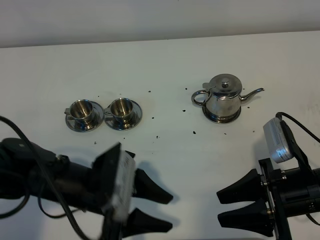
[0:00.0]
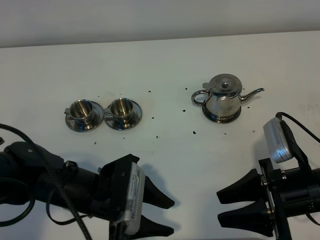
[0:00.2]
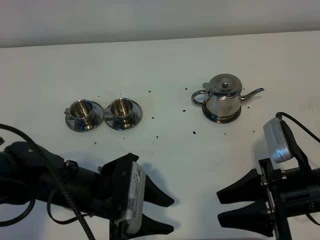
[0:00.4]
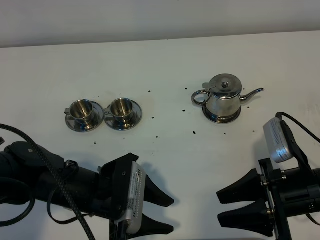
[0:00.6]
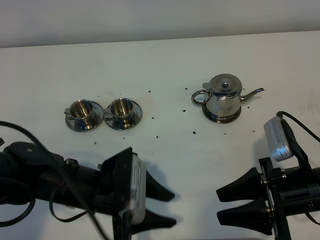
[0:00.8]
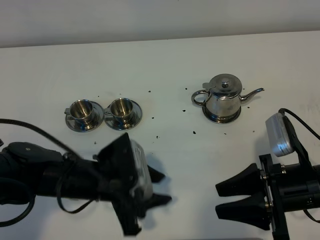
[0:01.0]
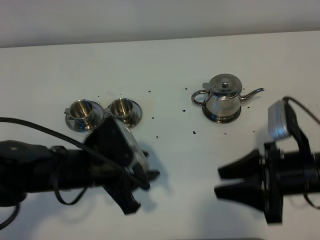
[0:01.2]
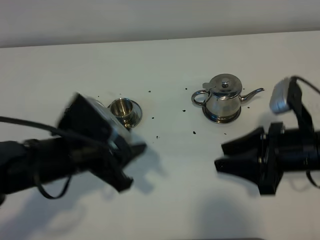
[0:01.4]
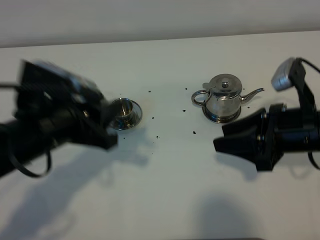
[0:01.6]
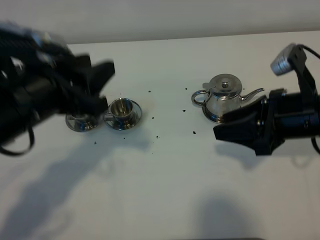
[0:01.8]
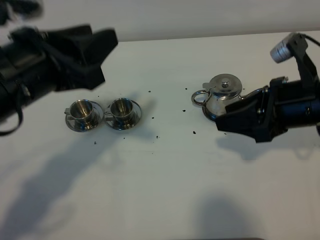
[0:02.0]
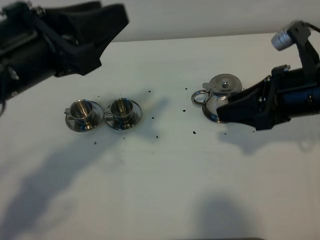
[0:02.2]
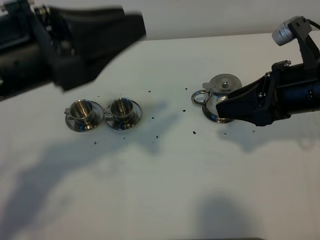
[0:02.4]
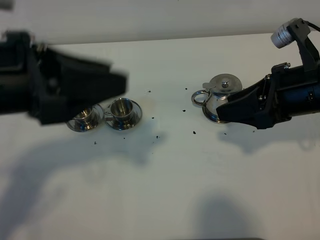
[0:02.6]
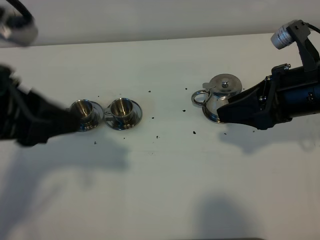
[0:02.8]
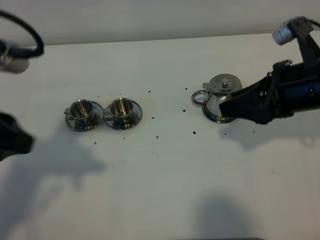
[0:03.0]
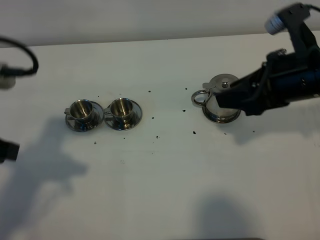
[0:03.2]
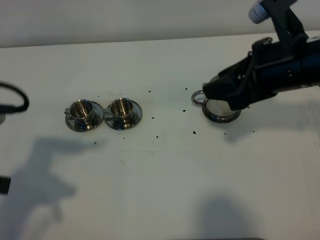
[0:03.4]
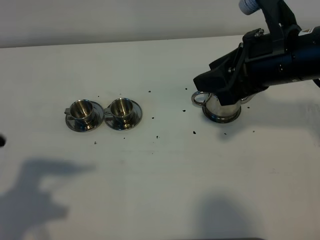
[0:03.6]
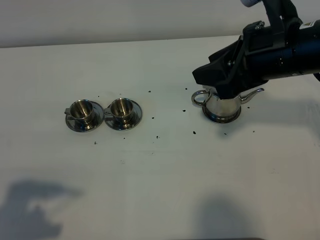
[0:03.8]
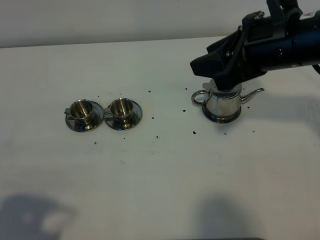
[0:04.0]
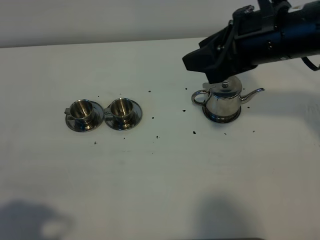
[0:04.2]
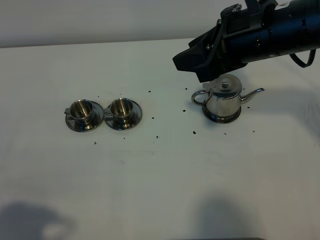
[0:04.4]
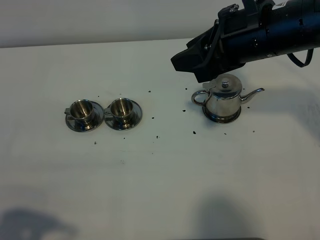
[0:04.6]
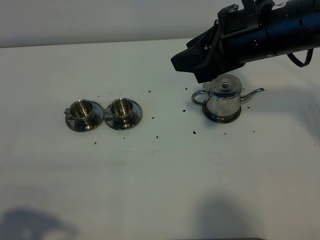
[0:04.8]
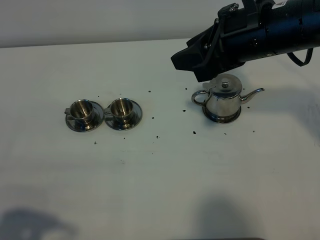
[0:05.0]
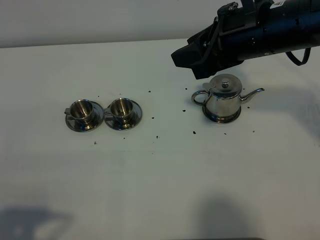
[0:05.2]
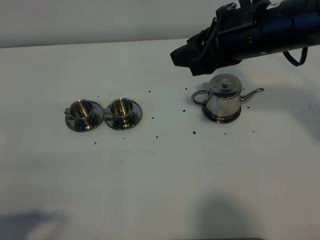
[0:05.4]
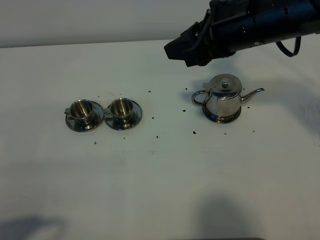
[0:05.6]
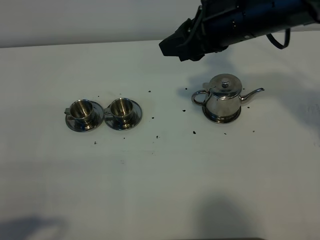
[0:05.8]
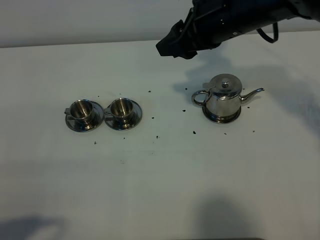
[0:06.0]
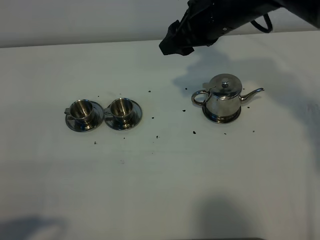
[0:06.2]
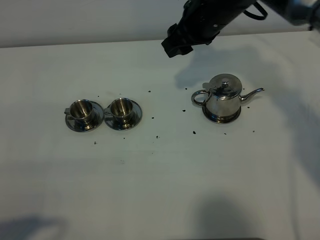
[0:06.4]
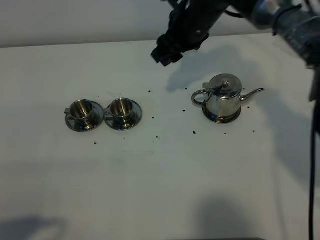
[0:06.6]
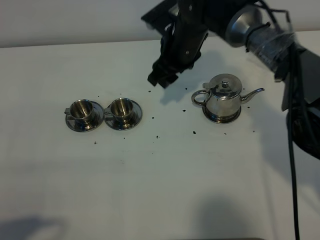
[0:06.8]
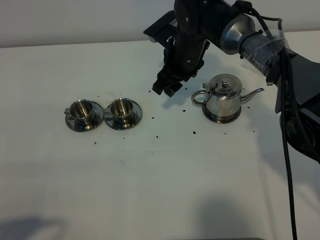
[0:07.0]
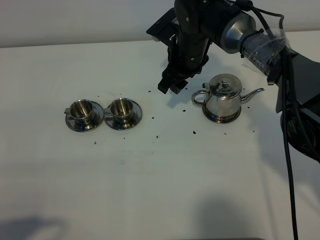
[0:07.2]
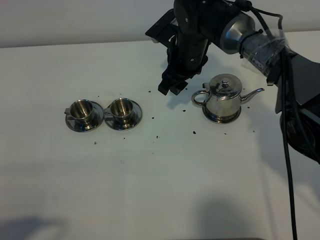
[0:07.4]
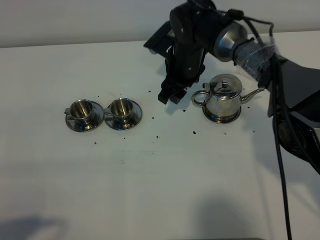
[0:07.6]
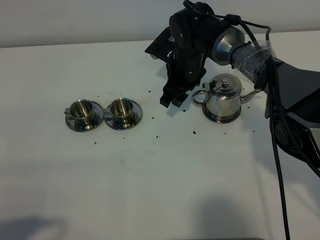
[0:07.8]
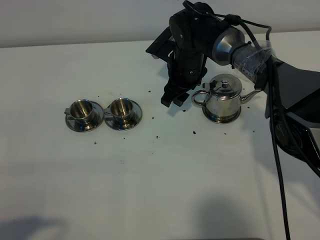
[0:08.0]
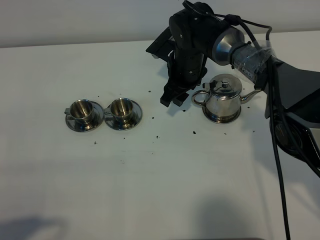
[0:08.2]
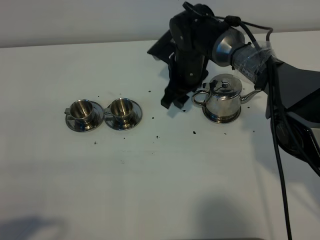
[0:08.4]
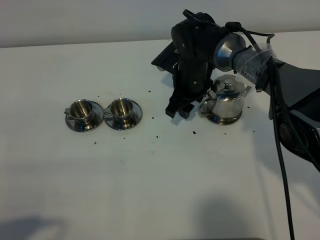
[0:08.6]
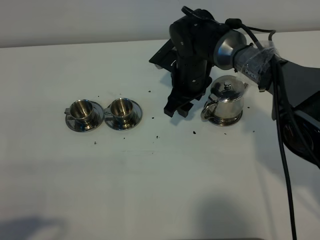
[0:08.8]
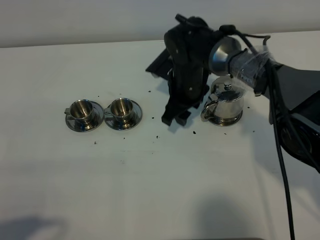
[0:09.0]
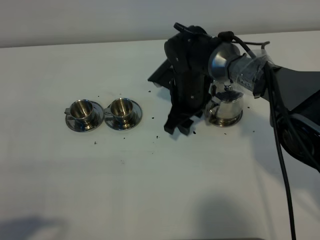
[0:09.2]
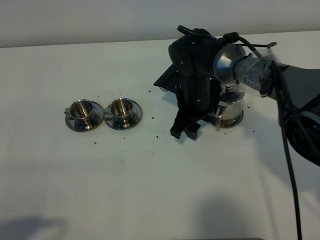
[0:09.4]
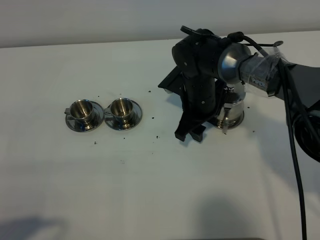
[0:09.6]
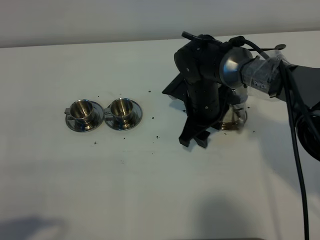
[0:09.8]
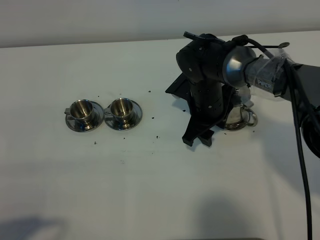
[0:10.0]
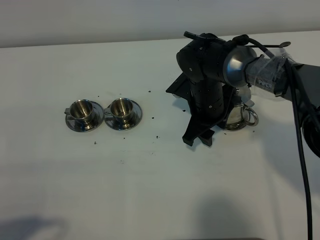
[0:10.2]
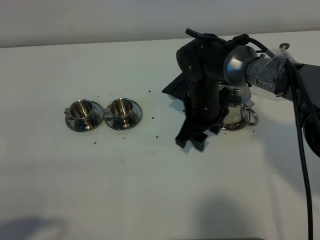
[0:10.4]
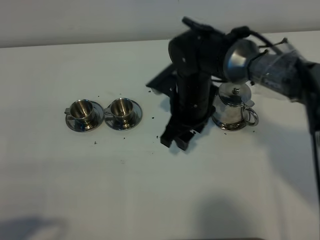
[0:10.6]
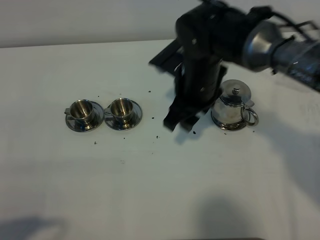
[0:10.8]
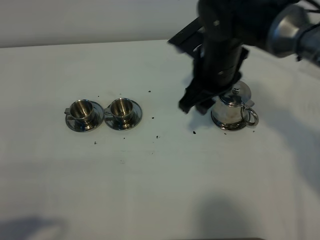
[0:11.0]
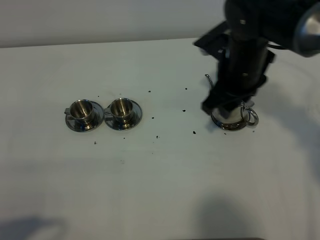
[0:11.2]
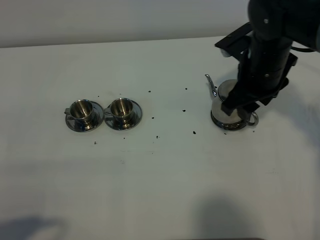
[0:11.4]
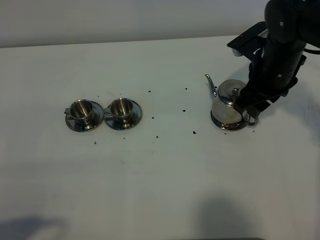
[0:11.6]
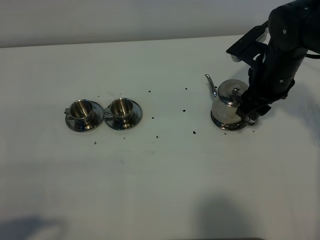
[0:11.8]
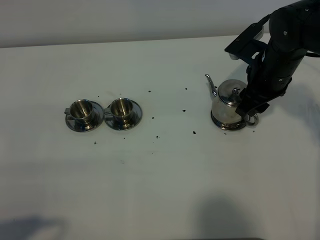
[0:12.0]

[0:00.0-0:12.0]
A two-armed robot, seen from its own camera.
Task of the whole recording: grasp the stainless steel teapot and pour the tea into the two stainless steel teacups one by one, put the stainless steel teapot back in its original place.
0:00.0 to 0:01.6: The left gripper shifts about 10 cm upward. Meanwhile the right gripper heads forward and upward, covering about 10 cm.
0:01.6 to 0:03.0: The left gripper travels upward and to the left by about 10 cm. Meanwhile the right gripper heads upward, covering some 5 cm.
0:03.0 to 0:04.4: The left gripper travels backward and downward by about 15 cm, while the right gripper heads to the left and upward, covering some 10 cm.
0:04.4 to 0:06.0: The right gripper travels forward by some 10 cm.
0:06.0 to 0:07.6: The right gripper heads downward, forward and to the left, covering some 20 cm.
0:07.6 to 0:09.0: There are only small adjustments of the grippers.
0:09.0 to 0:10.4: The right gripper travels backward by roughly 5 cm.
0:10.4 to 0:12.0: The right gripper moves to the right and upward, some 15 cm.

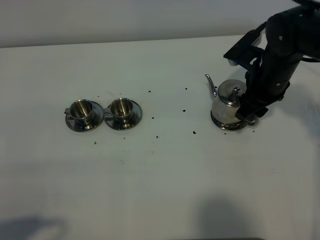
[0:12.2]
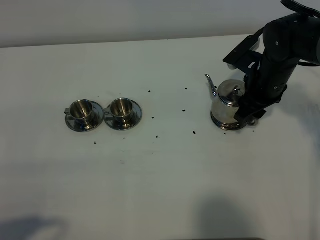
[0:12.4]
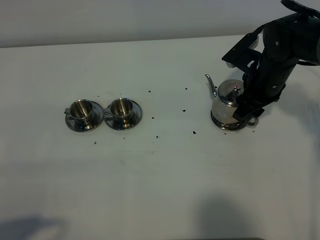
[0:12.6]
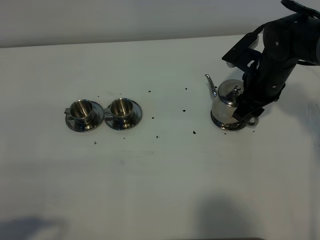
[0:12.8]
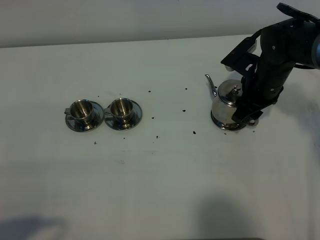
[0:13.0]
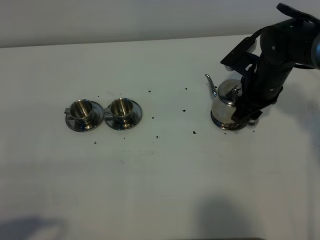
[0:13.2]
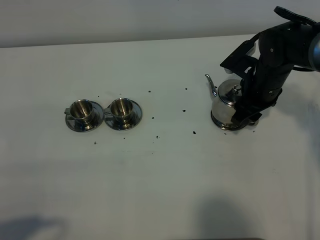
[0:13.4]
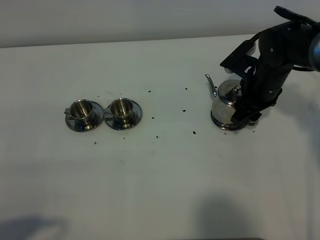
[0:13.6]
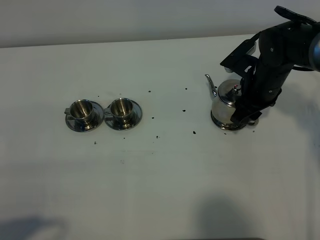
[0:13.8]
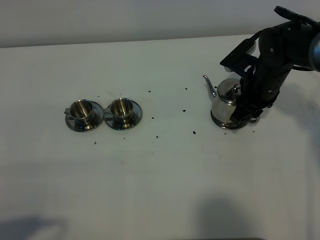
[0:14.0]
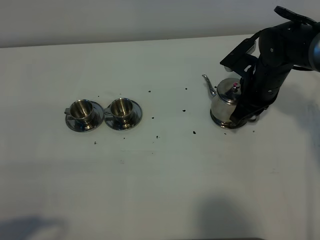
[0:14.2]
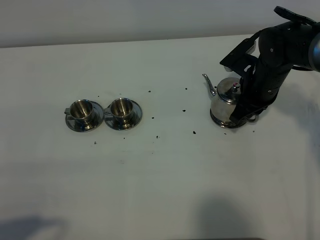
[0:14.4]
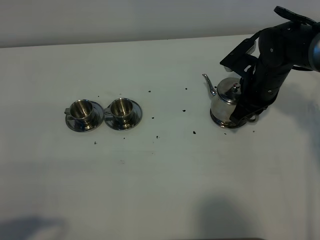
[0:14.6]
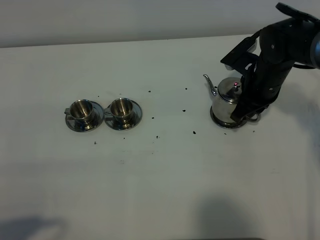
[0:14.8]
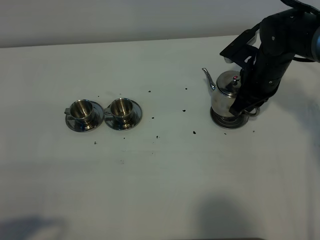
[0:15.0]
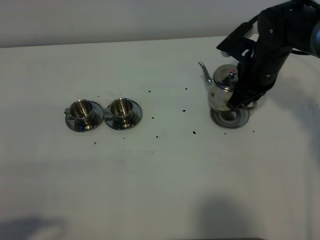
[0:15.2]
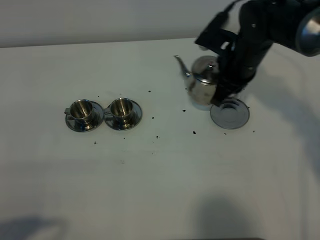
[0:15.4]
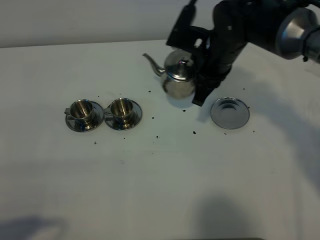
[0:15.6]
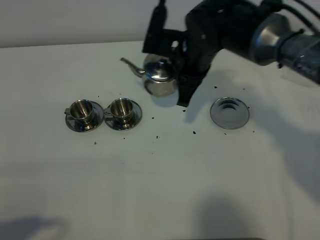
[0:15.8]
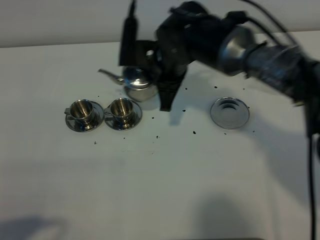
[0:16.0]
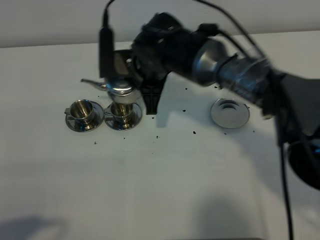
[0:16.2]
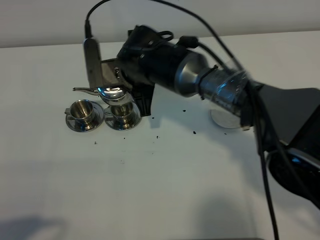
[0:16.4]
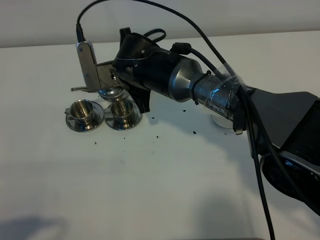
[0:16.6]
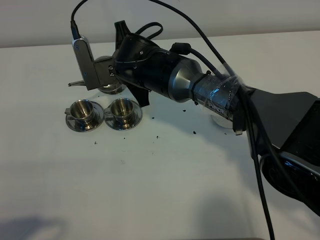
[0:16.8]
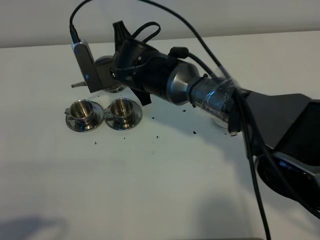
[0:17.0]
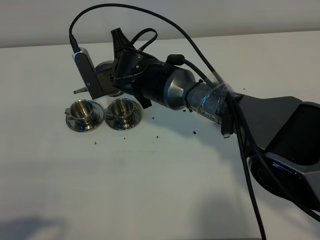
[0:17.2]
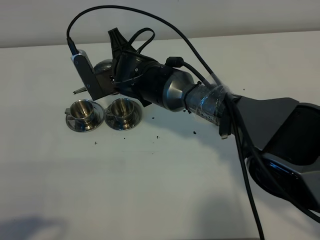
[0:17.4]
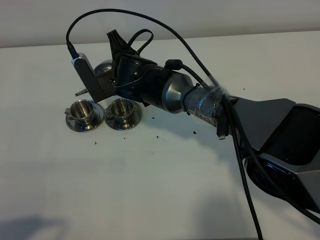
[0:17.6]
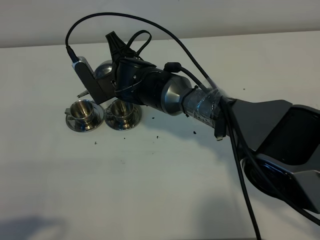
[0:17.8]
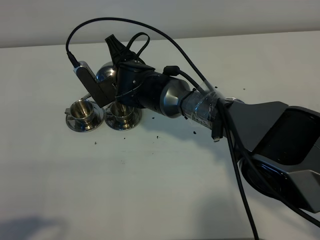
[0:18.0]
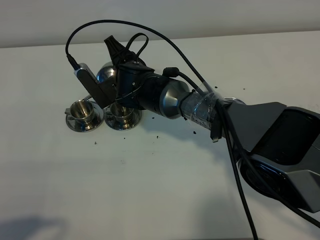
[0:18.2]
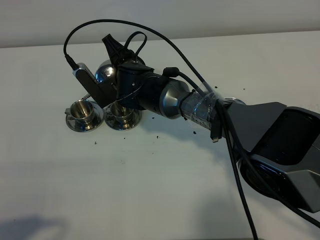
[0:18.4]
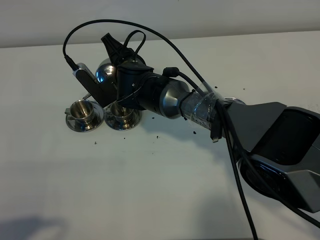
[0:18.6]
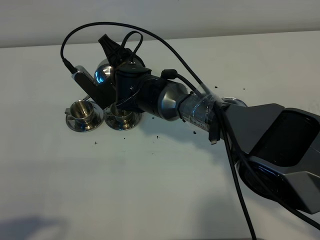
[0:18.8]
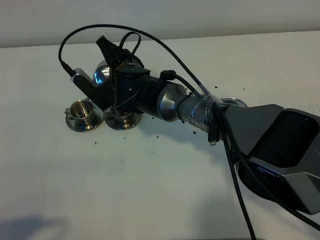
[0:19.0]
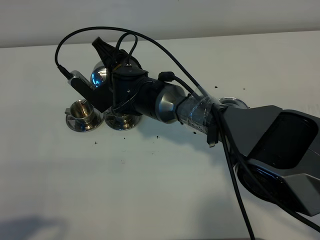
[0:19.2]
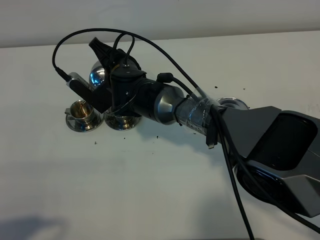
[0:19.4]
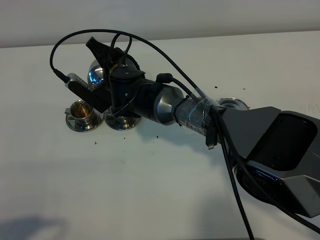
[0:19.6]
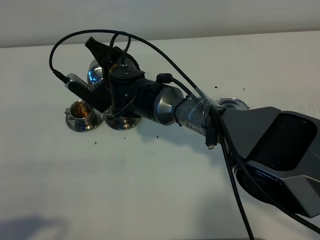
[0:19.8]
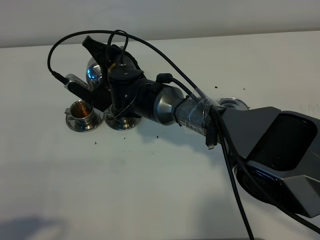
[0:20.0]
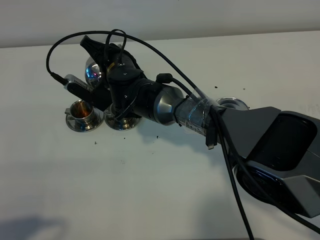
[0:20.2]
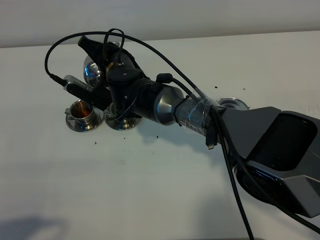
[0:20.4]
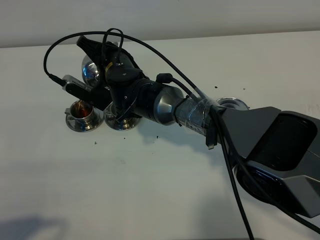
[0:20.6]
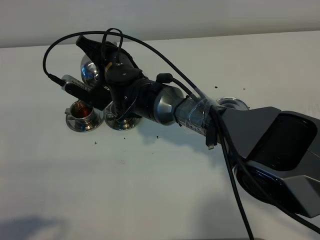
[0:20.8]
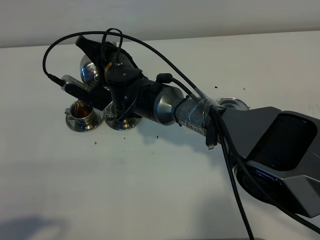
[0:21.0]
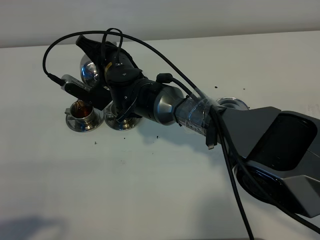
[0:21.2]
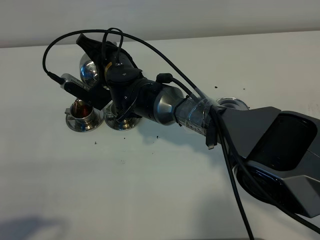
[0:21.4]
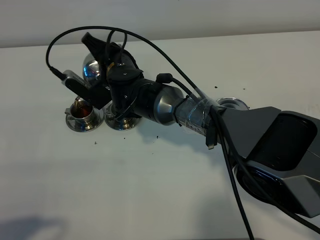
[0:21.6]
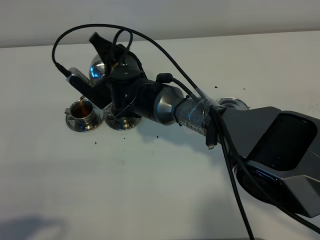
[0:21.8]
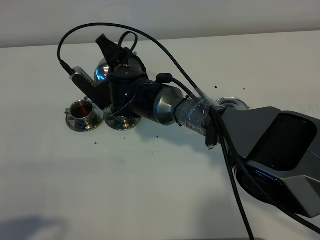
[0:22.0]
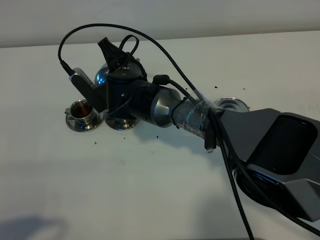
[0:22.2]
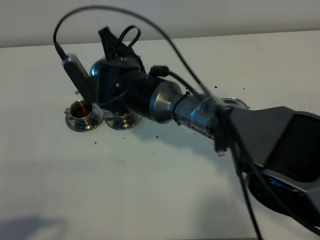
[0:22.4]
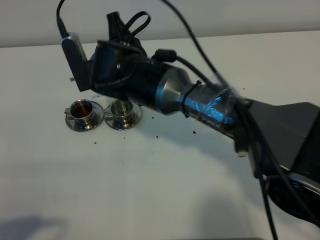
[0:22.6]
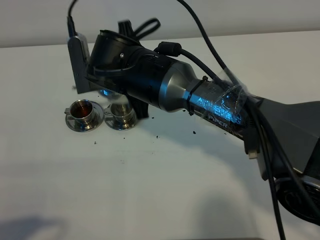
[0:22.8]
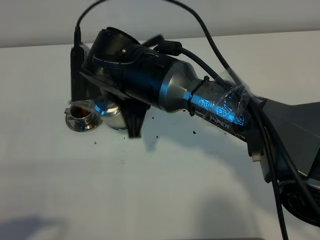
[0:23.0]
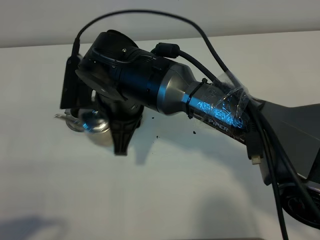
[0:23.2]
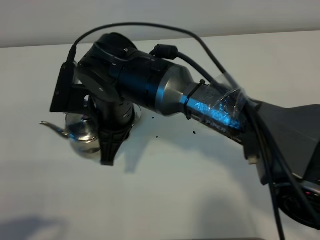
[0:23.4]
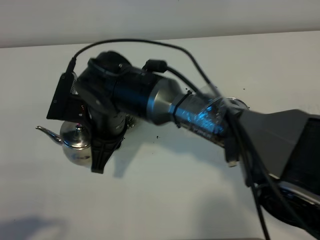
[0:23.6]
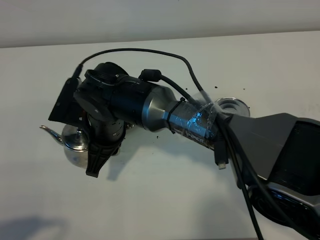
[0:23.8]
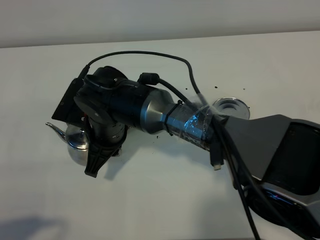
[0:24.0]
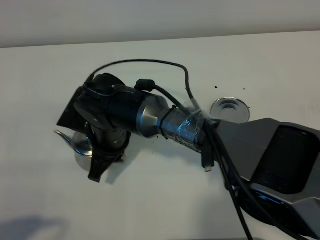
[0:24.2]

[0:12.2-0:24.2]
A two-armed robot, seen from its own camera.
Task of the whole recording: grasp the stainless steel teapot and pour the tea into the two stainless steel teacups one by one, put the stainless steel teapot back in its original place.
Step, 0:12.2 to 0:15.0: Pick up the teapot with the right gripper.
0:12.2 to 0:13.8: The grippers move only a little.
0:13.8 to 0:15.2: The right gripper closes up.
0:15.2 to 0:16.6: The right gripper travels to the left by some 20 cm.
0:16.6 to 0:18.2: The right gripper shifts by approximately 5 cm.
0:18.2 to 0:19.8: The grippers make only small movements.
0:19.8 to 0:21.2: There are only small adjustments of the grippers.
0:21.2 to 0:22.6: The right gripper shifts approximately 10 cm upward and backward.
0:22.6 to 0:24.2: The right gripper moves downward and backward, approximately 10 cm.
